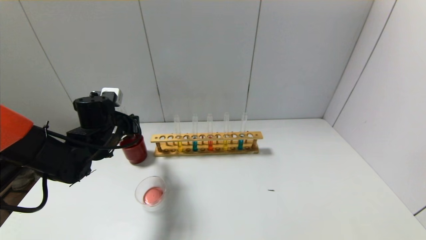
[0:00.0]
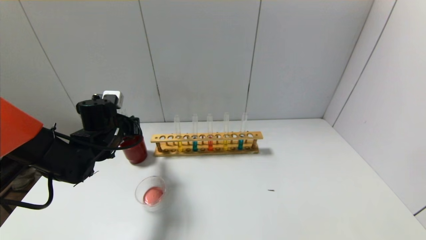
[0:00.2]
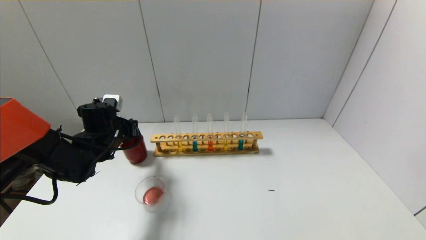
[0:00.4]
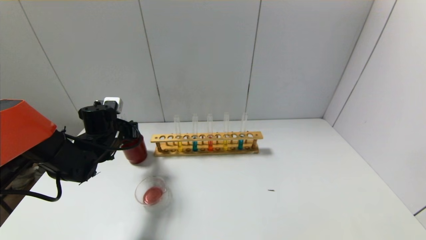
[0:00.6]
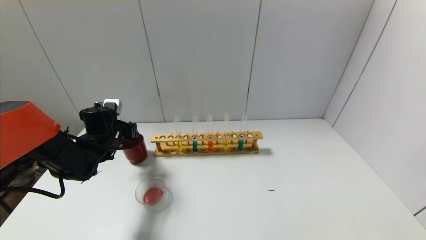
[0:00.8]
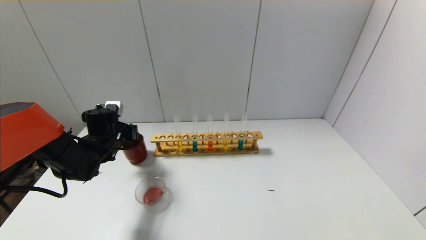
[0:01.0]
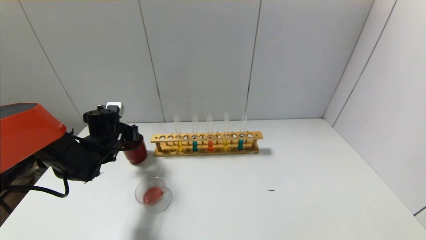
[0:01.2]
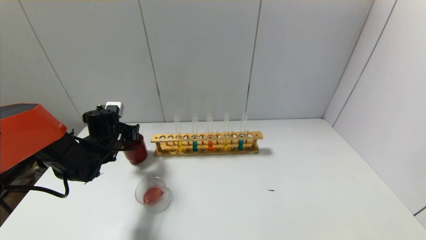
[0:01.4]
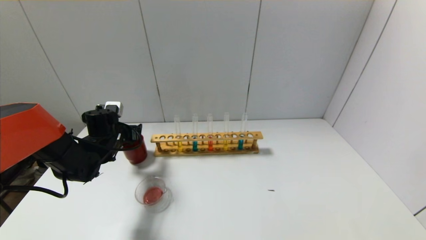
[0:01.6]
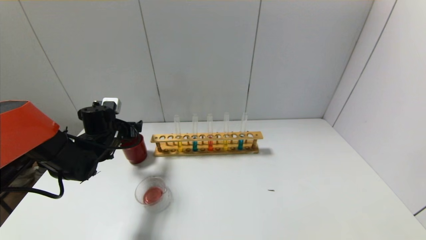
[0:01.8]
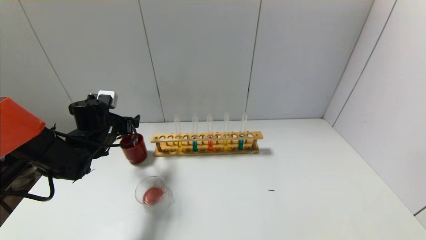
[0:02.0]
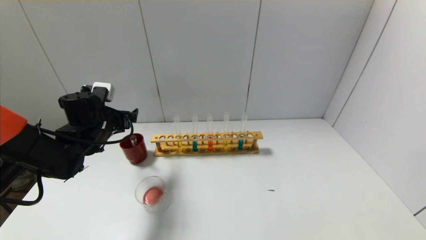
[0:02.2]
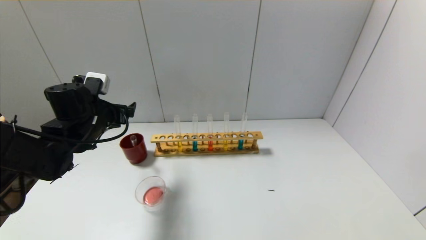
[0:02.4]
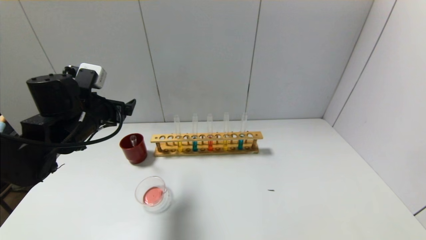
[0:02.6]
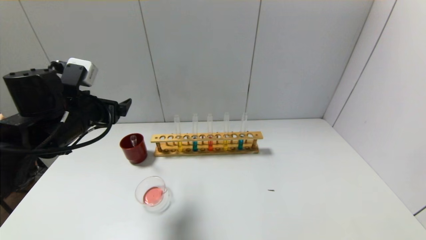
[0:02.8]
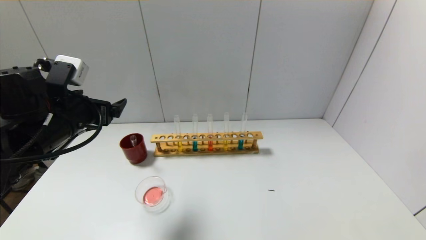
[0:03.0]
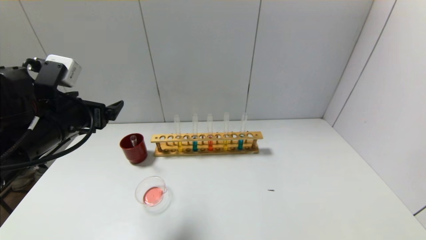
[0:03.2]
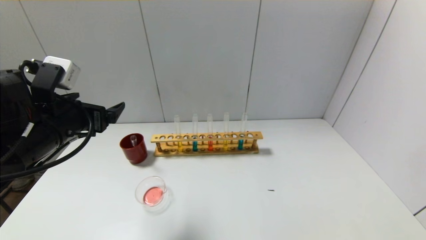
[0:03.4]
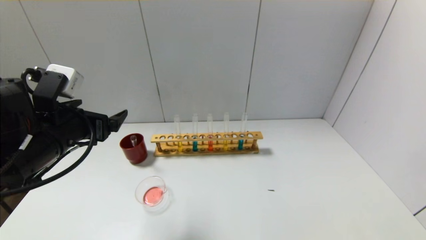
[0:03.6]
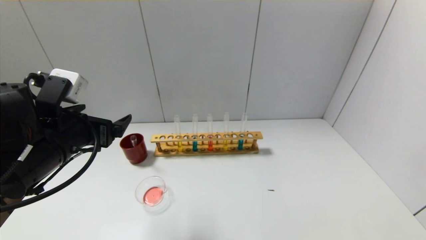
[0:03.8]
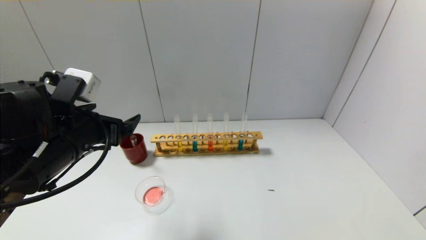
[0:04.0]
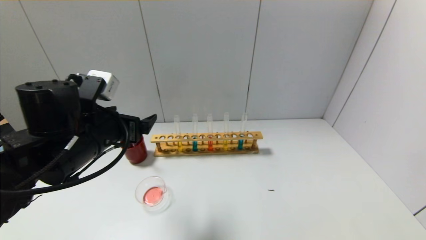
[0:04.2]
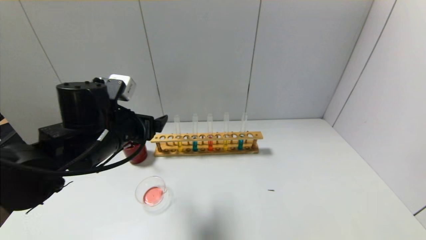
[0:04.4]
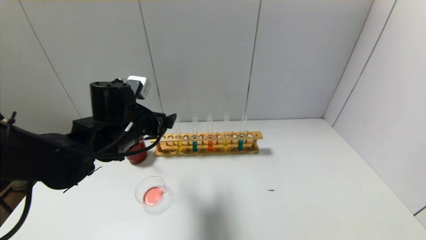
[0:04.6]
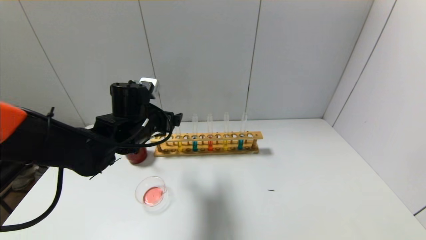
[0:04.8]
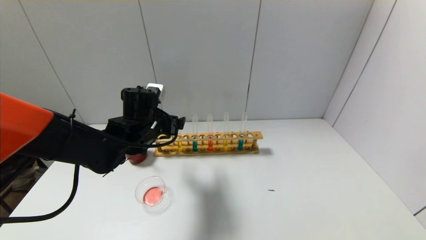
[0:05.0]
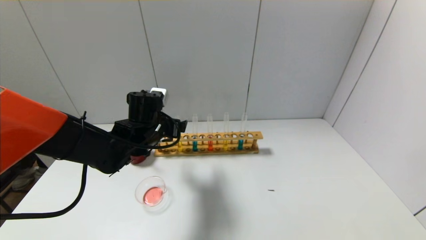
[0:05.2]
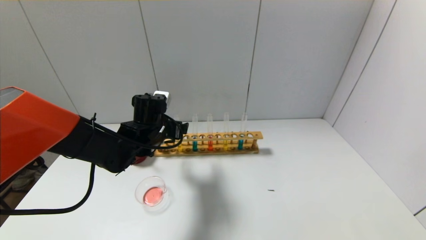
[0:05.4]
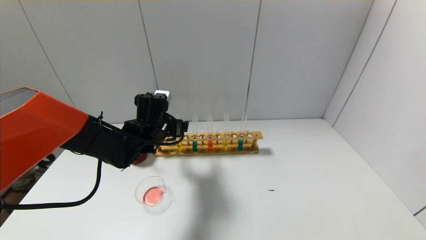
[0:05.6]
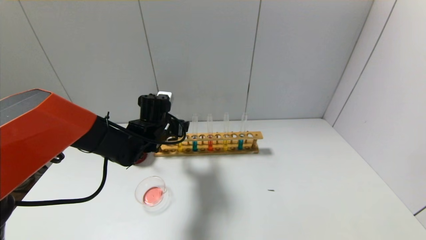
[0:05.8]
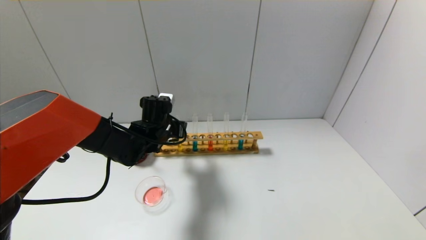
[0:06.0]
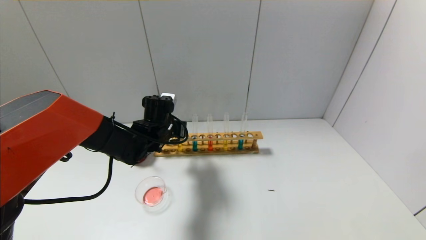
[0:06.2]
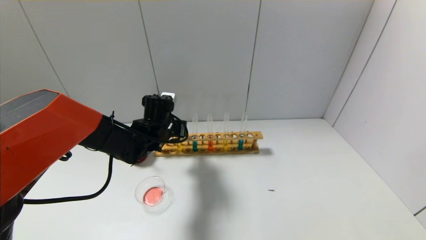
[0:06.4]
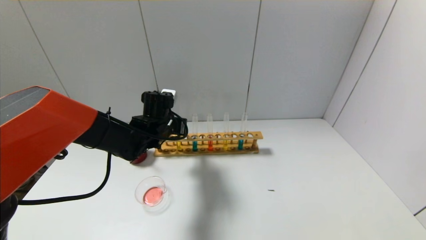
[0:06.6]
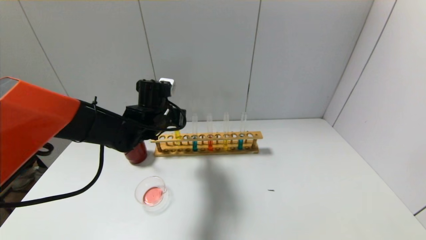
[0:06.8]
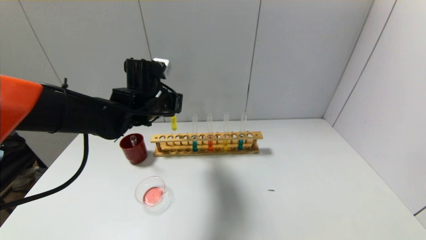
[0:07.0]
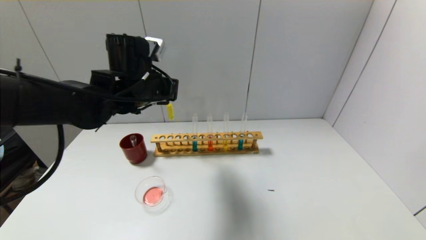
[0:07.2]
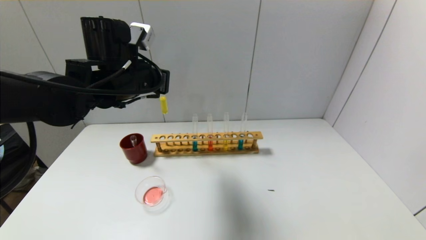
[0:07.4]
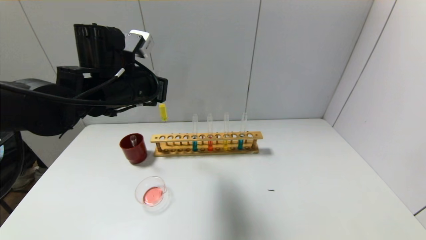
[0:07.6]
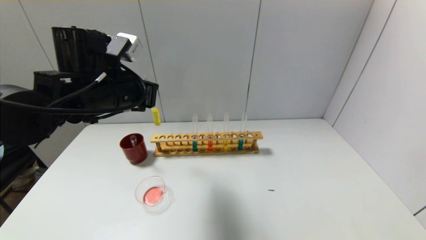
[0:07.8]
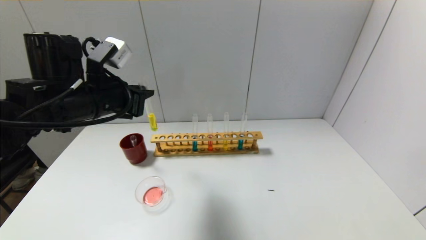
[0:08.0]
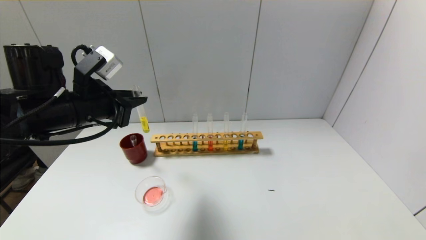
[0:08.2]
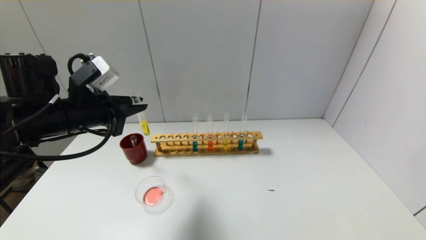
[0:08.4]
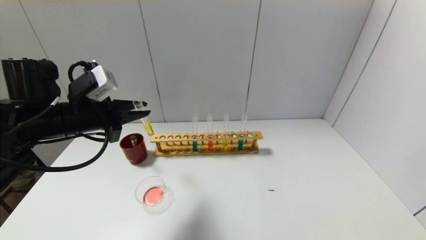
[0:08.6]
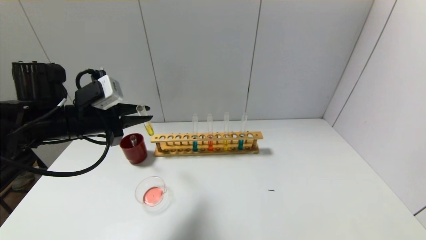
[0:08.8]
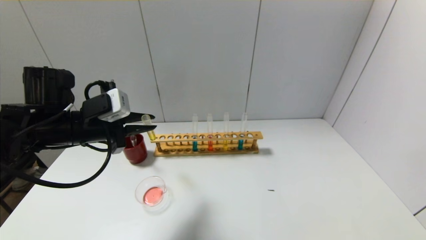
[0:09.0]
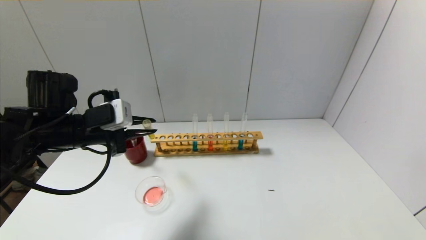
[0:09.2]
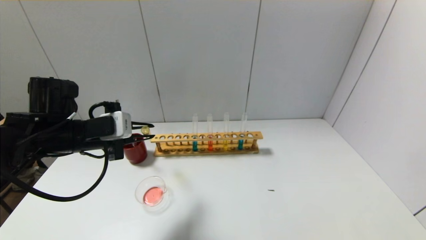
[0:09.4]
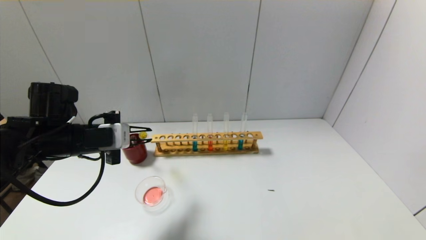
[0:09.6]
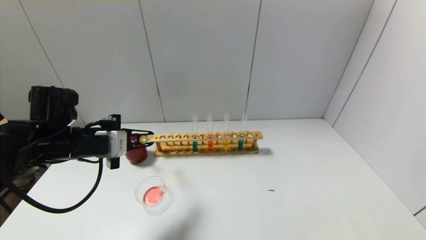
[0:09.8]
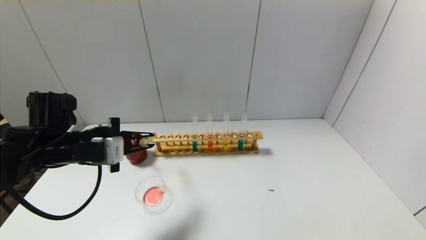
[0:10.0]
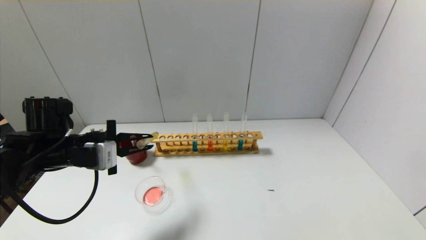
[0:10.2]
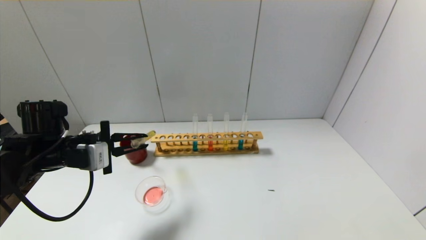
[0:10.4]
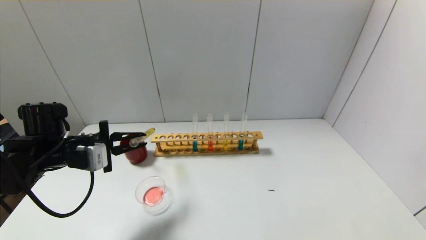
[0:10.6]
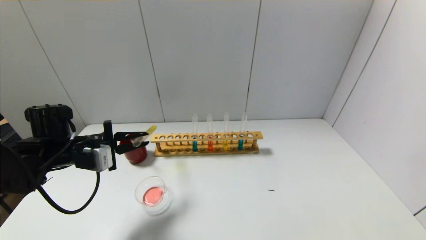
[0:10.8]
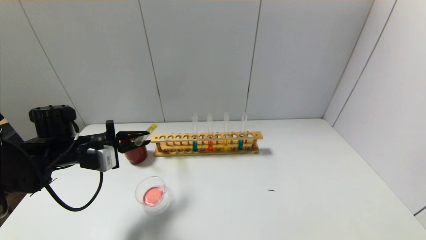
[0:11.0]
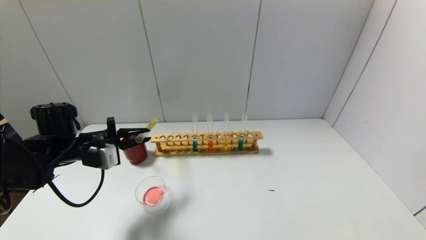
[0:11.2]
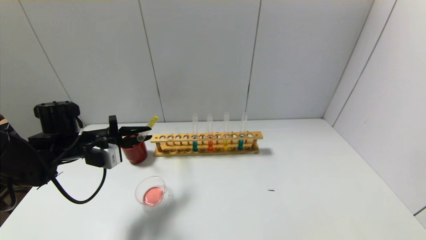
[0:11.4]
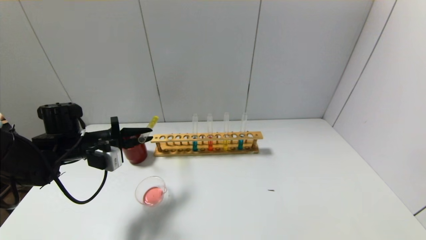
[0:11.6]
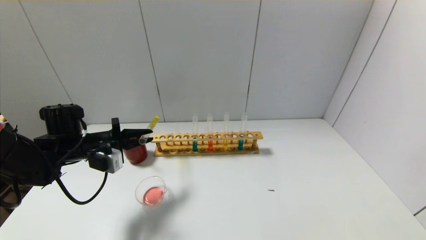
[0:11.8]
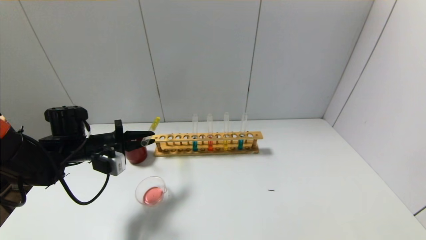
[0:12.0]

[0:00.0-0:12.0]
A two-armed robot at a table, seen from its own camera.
Step, 0:01.4 to 0:06.4: Grasp the yellow reagent with the left gripper.
0:00.0 to 0:01.6: The left gripper moves downward, roughly 5 cm, and opens.
0:01.6 to 0:03.0: The left gripper goes roughly 20 cm upward and backward.
0:03.0 to 0:04.4: The left gripper heads to the right, covering about 5 cm.
0:04.4 to 0:06.0: The left gripper heads forward and downward, covering some 15 cm, and closes its fingers.
0:06.0 to 0:07.6: The left gripper moves upward and backward, approximately 15 cm, and closes its fingers.
0:07.6 to 0:09.0: The left gripper moves to the left and downward, about 10 cm.
0:09.0 to 0:10.4: The left gripper moves downward, roughly 5 cm.
0:10.4 to 0:12.0: The left gripper moves forward, roughly 5 cm.

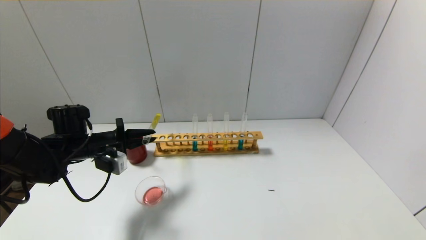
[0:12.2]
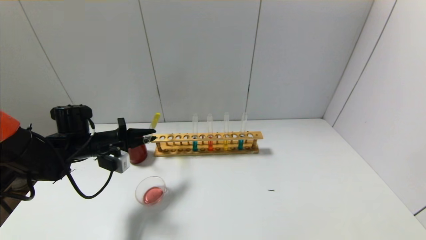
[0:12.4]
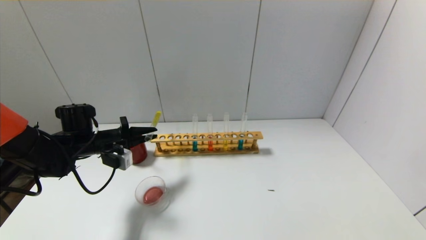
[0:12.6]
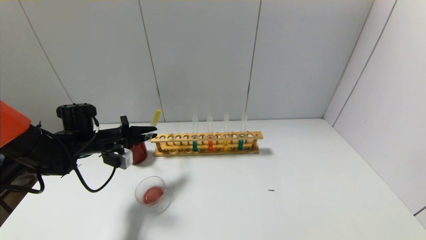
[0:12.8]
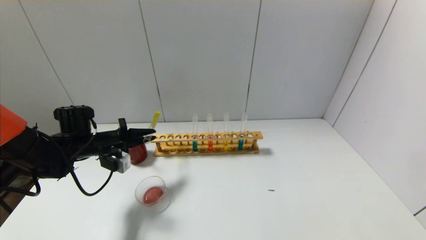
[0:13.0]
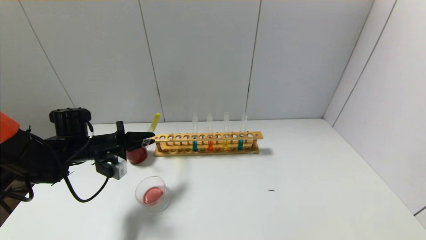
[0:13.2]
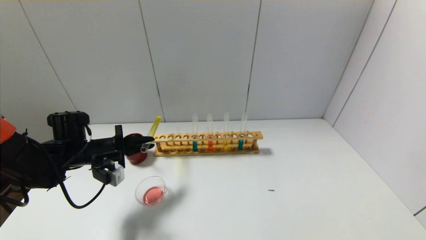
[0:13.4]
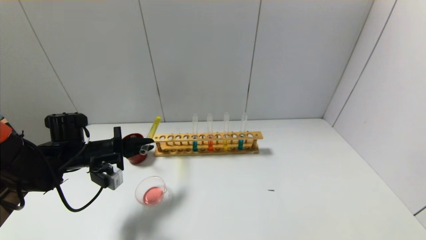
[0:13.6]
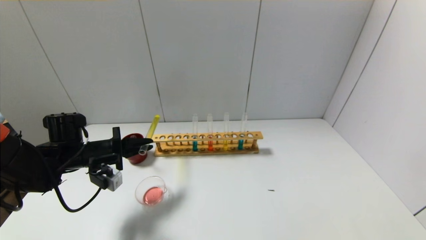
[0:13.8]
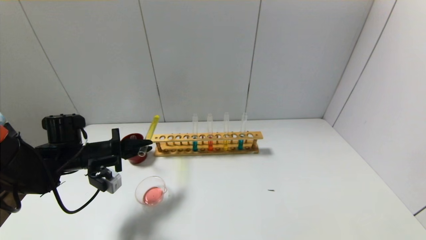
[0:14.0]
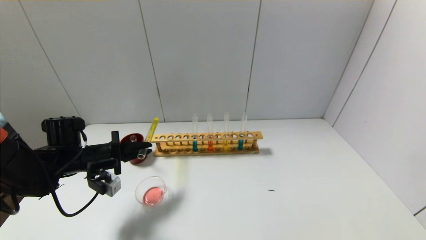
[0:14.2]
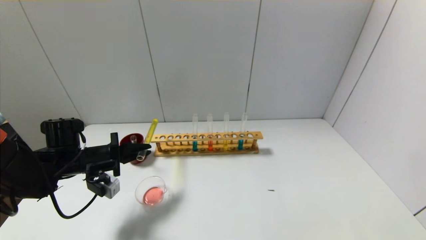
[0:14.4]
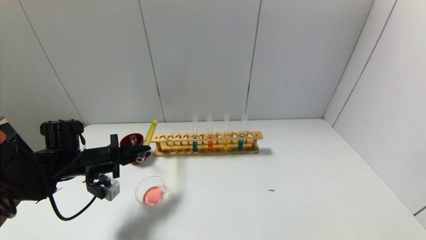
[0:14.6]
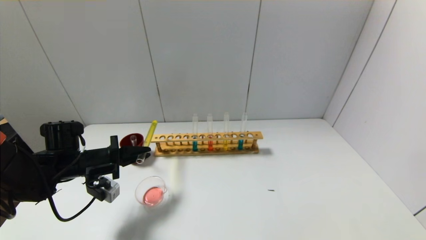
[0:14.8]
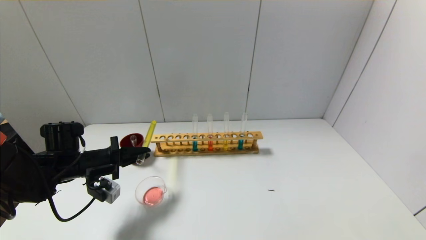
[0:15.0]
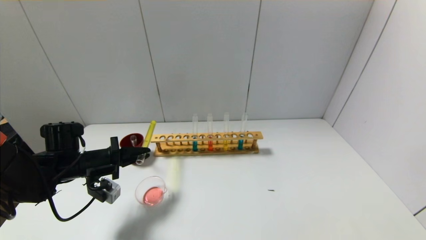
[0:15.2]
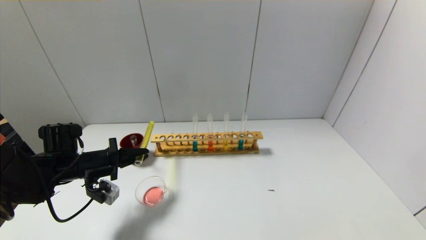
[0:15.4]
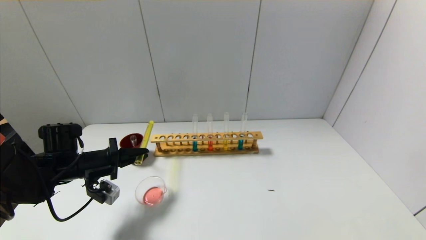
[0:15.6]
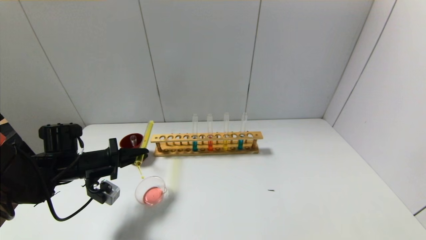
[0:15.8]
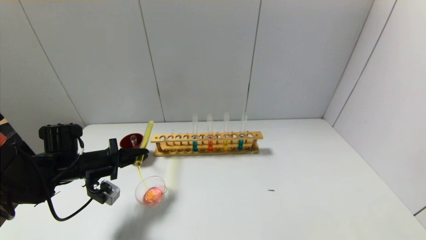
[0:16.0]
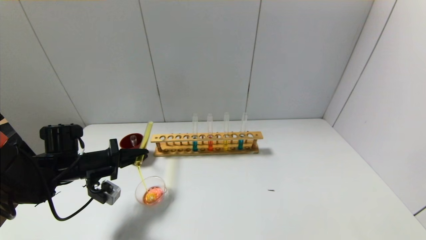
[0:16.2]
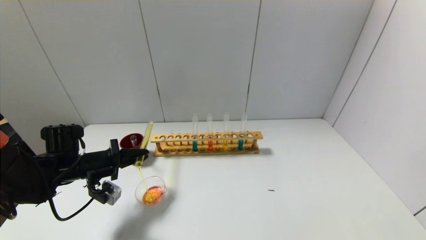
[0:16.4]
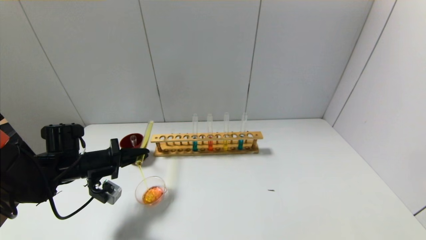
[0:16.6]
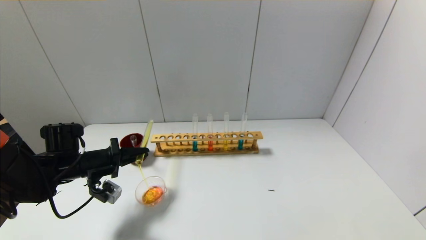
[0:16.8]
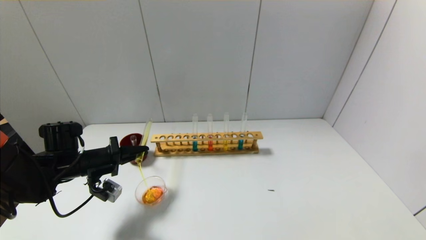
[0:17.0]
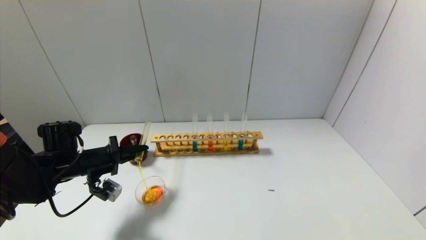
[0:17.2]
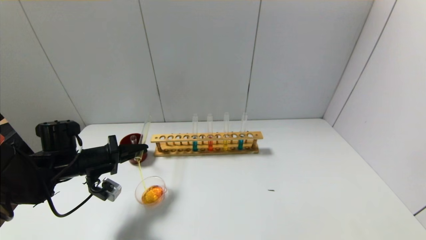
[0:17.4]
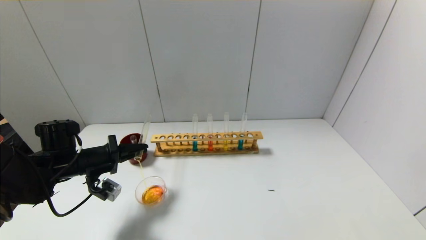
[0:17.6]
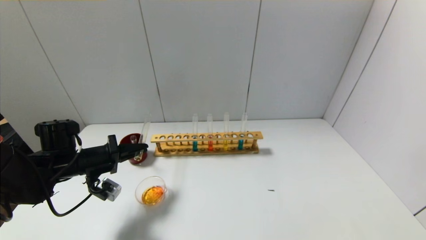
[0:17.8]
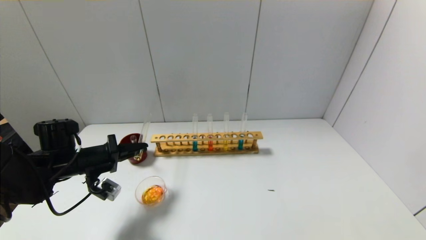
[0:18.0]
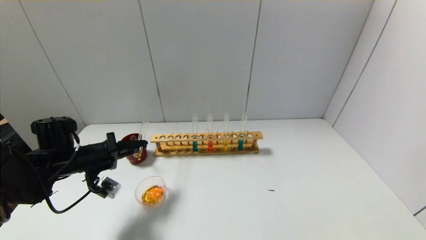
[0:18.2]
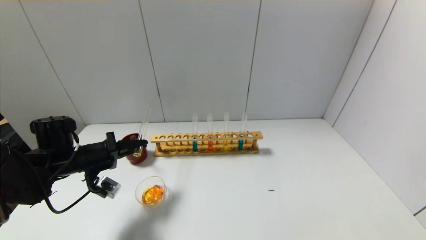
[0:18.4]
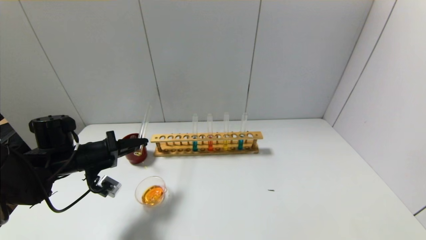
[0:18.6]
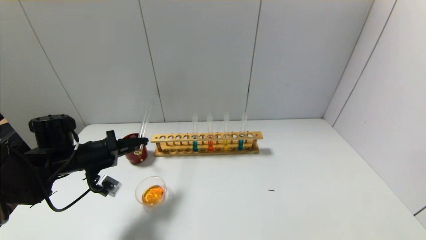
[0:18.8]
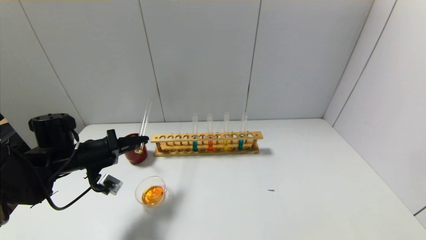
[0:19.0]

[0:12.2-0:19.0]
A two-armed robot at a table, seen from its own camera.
0:12.2 to 0:16.2: The grippers make only small movements.
0:16.2 to 0:19.0: The grippers make only small movements.
